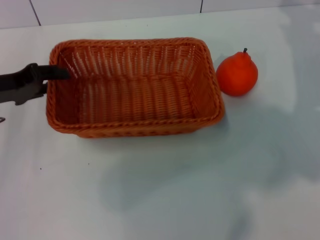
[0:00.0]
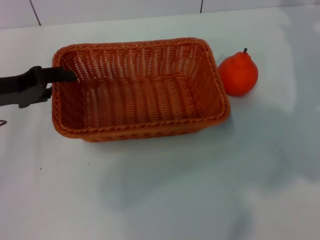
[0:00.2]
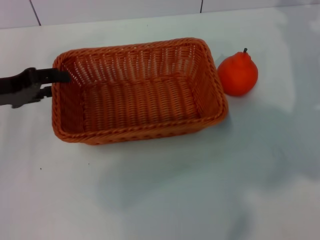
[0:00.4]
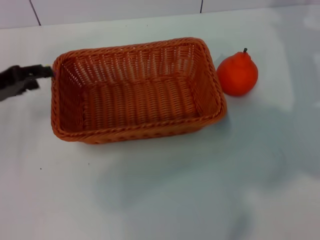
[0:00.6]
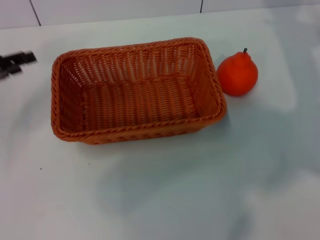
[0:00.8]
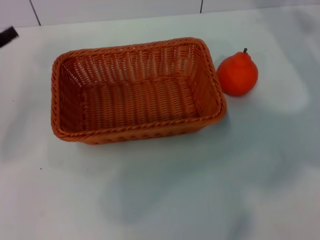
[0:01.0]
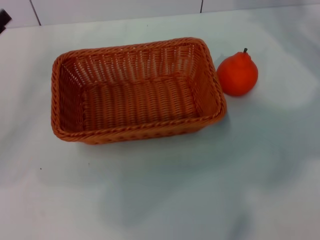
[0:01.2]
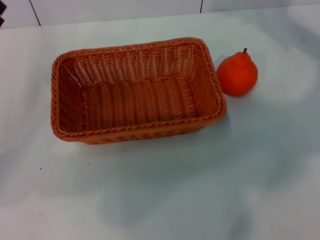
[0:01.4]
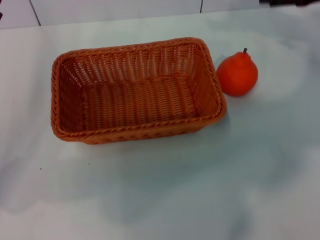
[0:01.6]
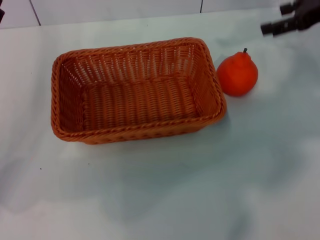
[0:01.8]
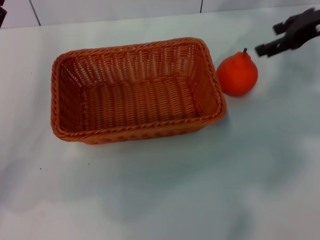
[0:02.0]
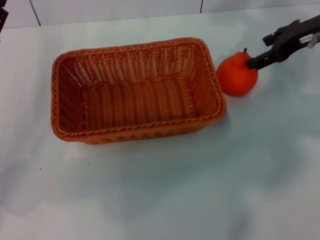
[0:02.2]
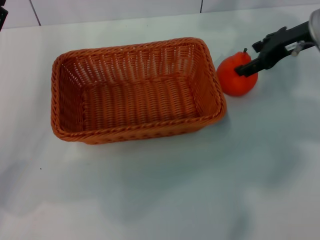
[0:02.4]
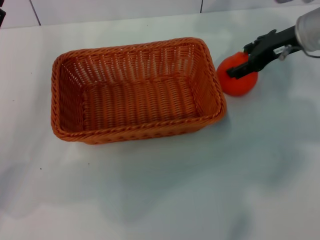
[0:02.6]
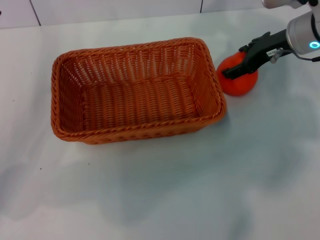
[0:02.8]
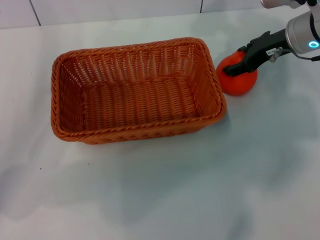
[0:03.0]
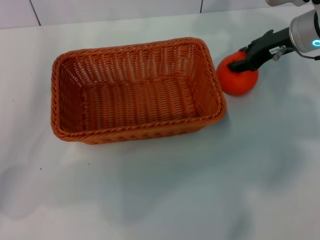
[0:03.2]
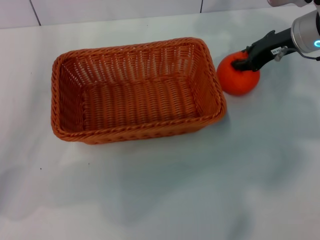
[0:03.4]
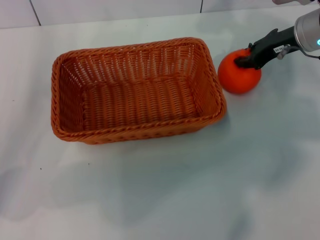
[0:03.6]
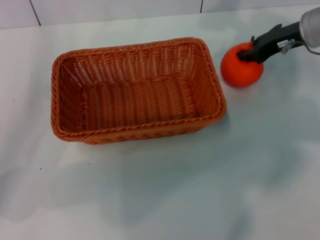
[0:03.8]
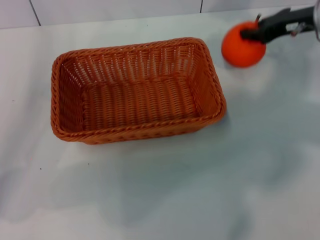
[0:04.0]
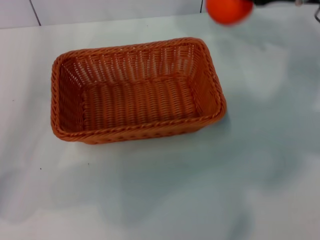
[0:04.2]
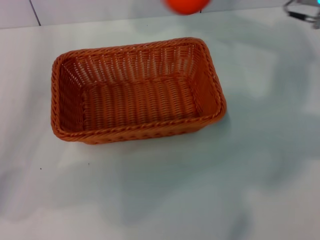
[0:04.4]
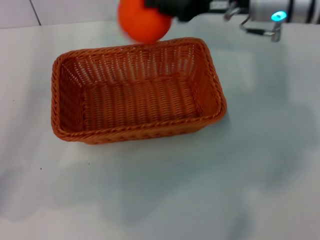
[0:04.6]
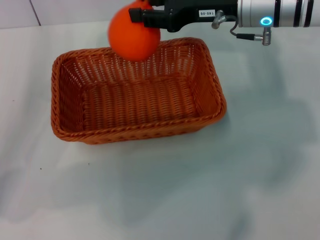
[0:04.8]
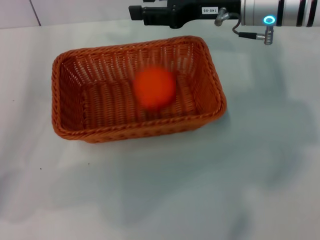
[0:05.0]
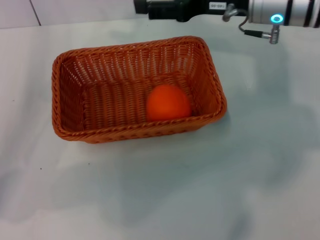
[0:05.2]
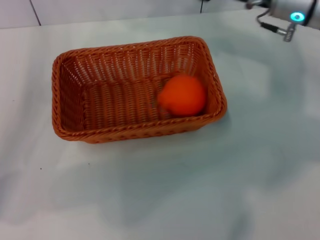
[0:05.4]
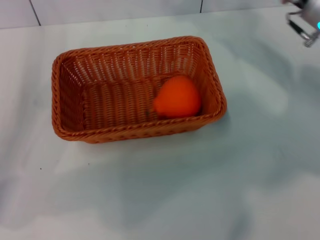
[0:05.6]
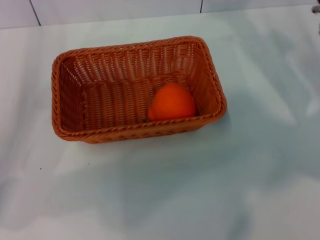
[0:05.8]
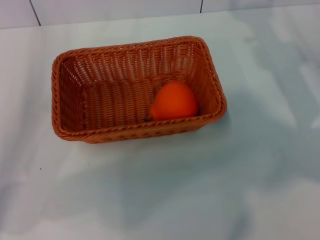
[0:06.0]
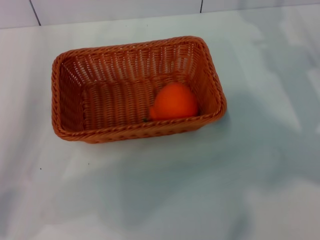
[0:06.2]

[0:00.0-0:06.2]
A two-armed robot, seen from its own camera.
Task of the whole recording: the left gripper pick up the yellow basket and place it horizontally in the middle of the table, the right gripper pick up the orange and place it into the yellow basket.
Step, 0:01.0 to 0:03.8: Pick up the orange with the right gripper.
Step, 0:04.0 to 0:05.0: Place the orange into the light basket with the right gripper.
0:00.0 to 0:01.6: The right gripper goes some 10 cm upward; the left gripper shifts by some 5 cm, and opens.
0:01.6 to 0:03.2: The right gripper is displaced to the left and downward by roughly 10 cm.
0:03.2 to 0:04.6: The right gripper moves to the left, about 5 cm, and closes.
0:04.6 to 0:06.2: The right gripper travels to the right, downward and backward by some 15 cm, and opens its fingers.
